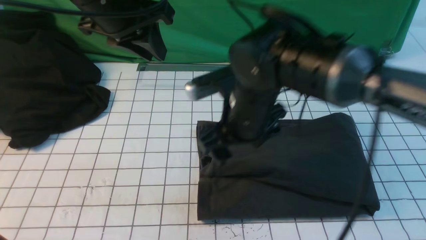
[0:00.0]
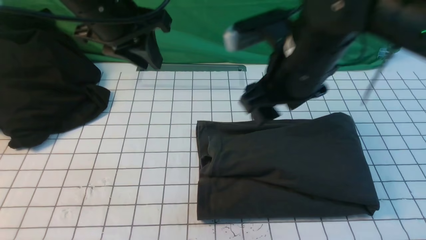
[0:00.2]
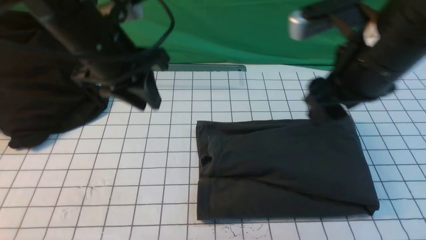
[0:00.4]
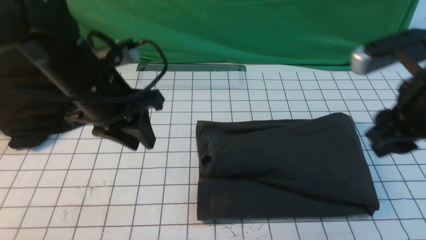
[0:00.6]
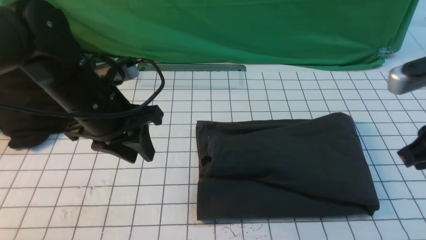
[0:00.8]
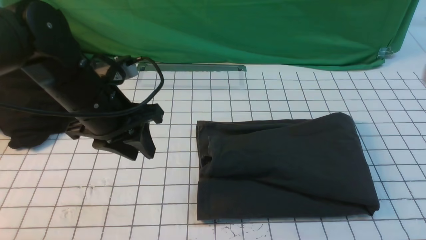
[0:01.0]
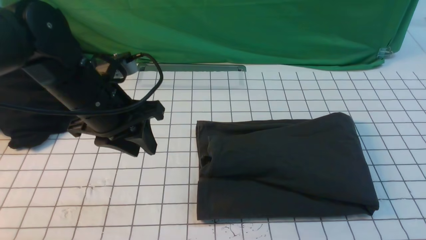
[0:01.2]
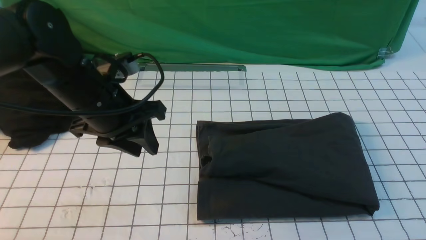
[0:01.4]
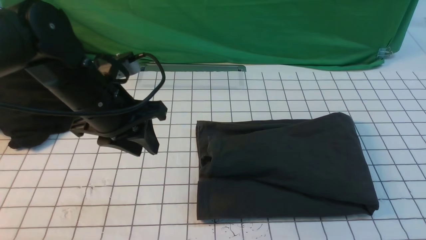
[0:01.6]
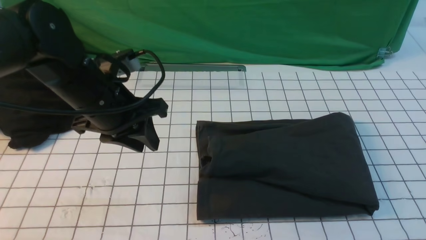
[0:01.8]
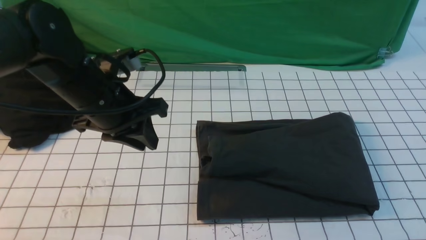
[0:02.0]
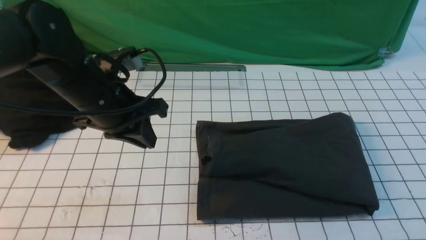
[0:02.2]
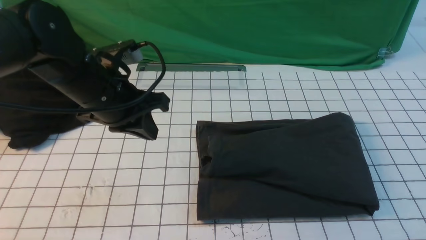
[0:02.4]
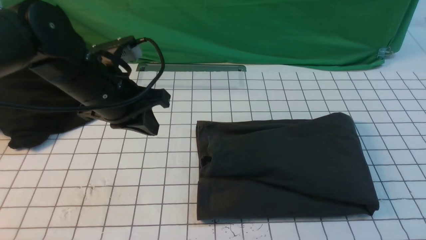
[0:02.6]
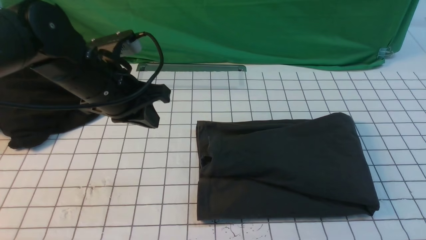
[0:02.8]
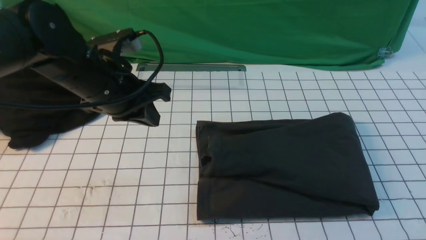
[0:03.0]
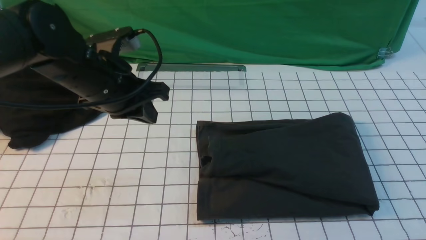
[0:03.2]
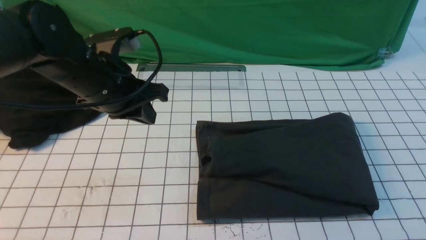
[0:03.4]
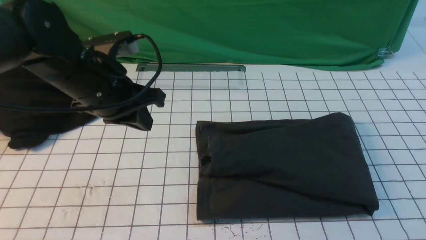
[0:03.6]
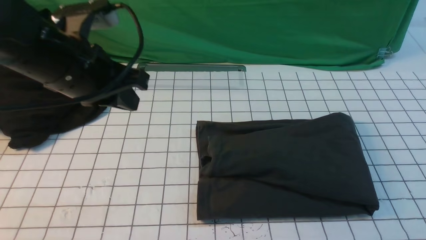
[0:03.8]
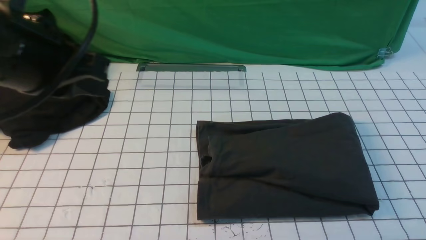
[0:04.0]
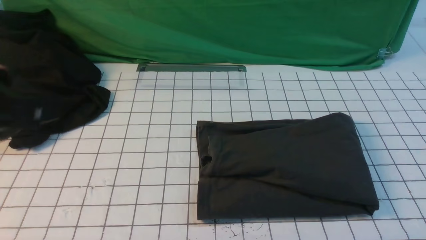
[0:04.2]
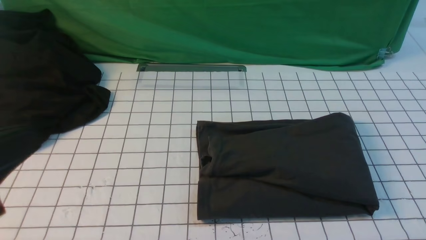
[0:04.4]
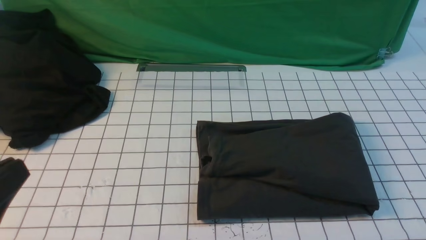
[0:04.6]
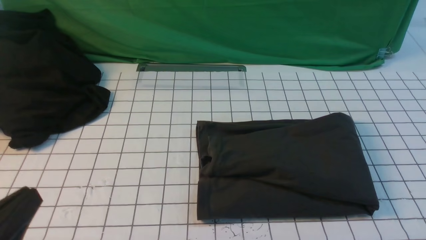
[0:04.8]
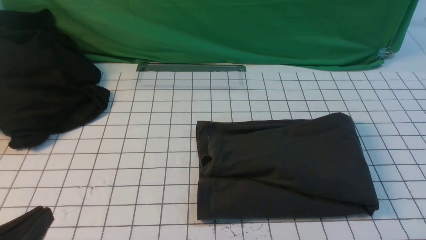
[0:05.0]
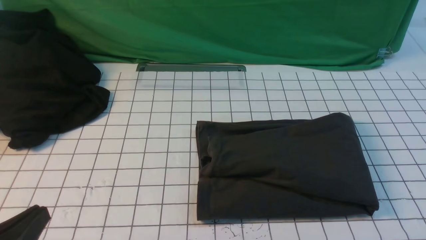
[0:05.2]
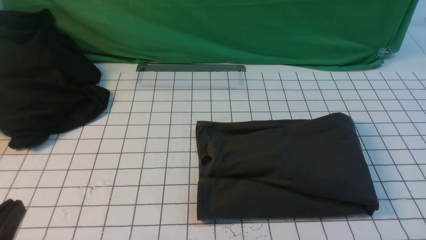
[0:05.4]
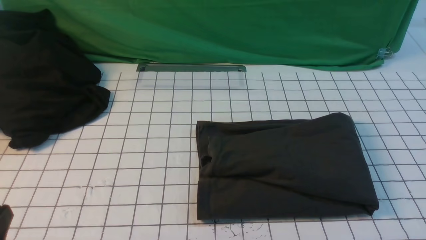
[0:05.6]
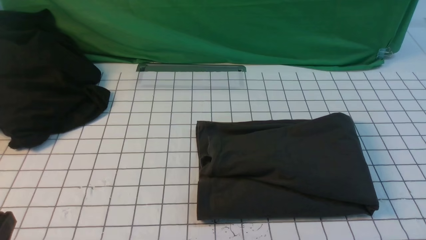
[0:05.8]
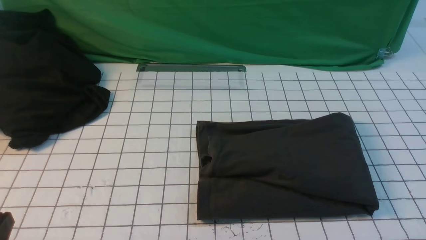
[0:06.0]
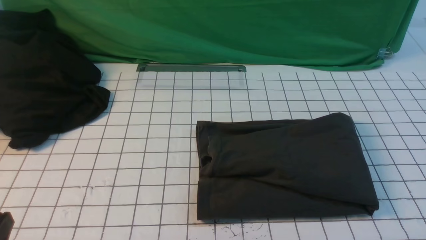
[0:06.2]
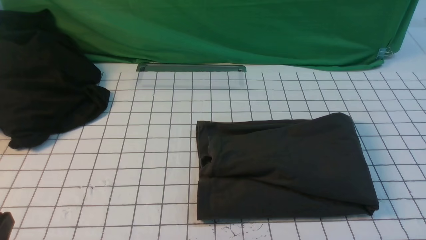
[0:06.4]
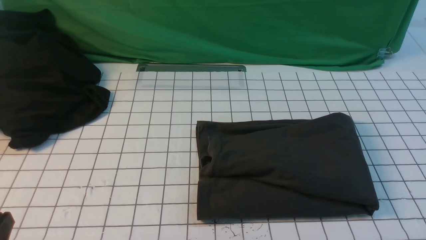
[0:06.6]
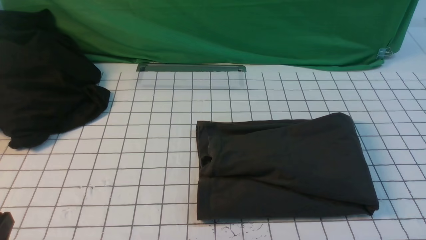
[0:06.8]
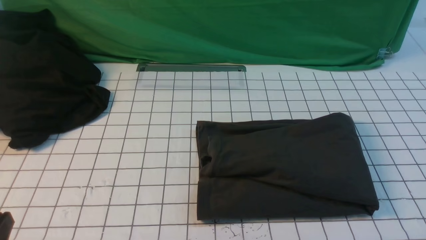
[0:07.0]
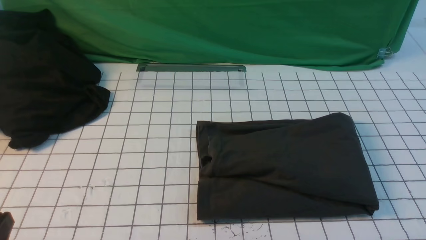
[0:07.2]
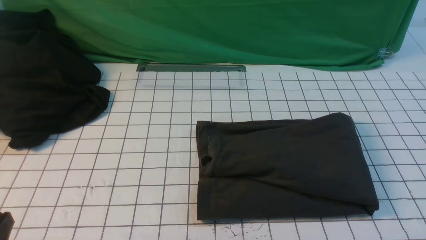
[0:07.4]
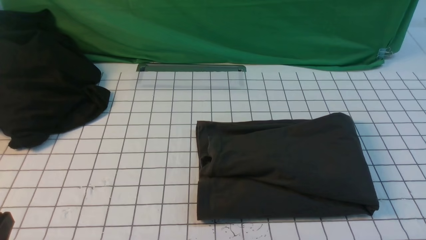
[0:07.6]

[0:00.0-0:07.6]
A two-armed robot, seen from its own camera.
0:00.0 to 0:01.6: The right gripper shifts about 40 cm backward and to the right, and closes, while the left gripper moves downward and backward, some 10 cm.
0:01.6 to 0:03.0: The right gripper moves downward, about 10 cm. Meanwhile the left gripper closes up.
0:03.0 to 0:04.6: The right gripper travels downward by approximately 10 cm, while the left gripper shifts some 25 cm backward.
0:04.6 to 0:06.0: The left gripper goes roughly 10 cm downward.
0:06.0 to 0:07.6: The two grippers keep their place.
